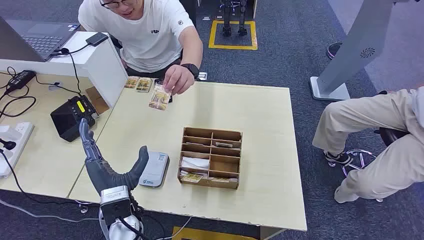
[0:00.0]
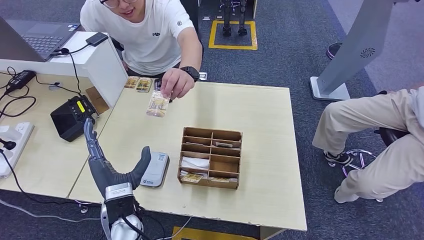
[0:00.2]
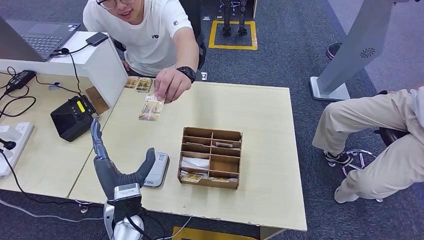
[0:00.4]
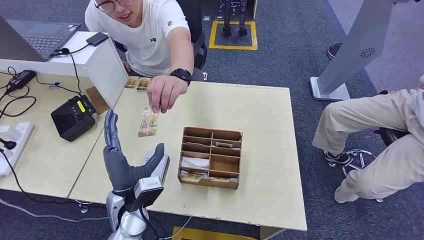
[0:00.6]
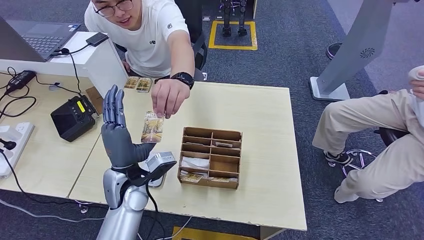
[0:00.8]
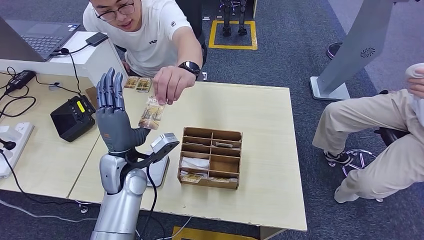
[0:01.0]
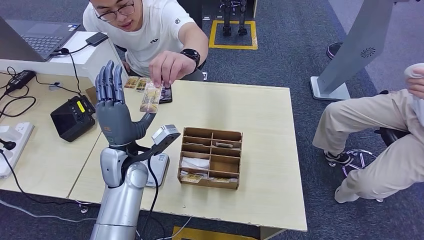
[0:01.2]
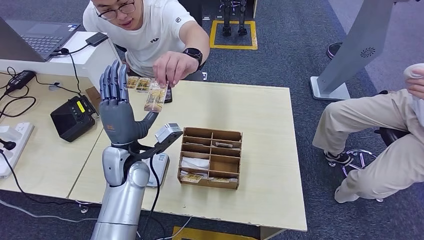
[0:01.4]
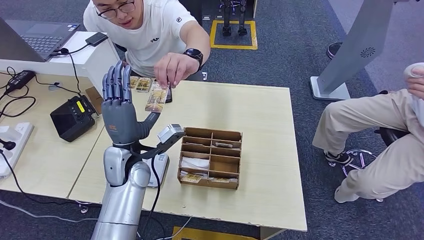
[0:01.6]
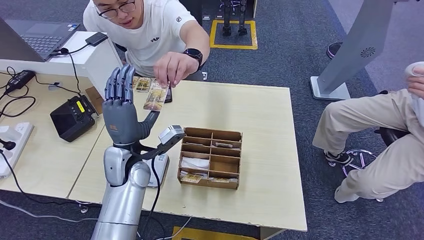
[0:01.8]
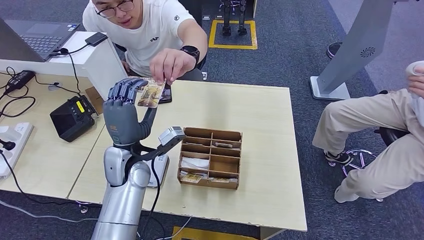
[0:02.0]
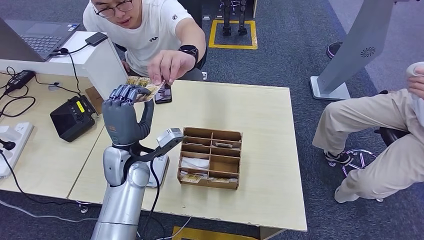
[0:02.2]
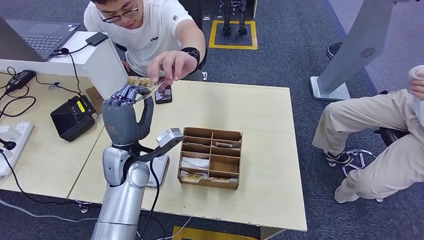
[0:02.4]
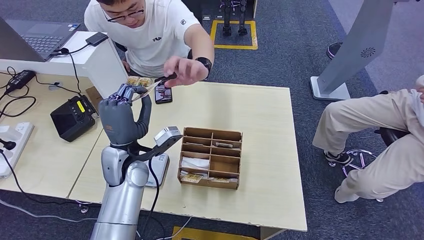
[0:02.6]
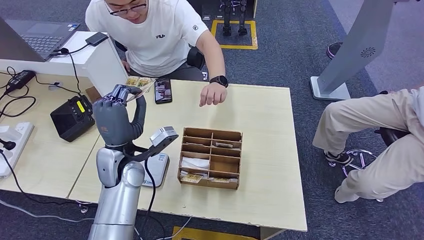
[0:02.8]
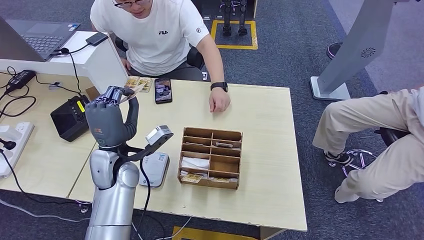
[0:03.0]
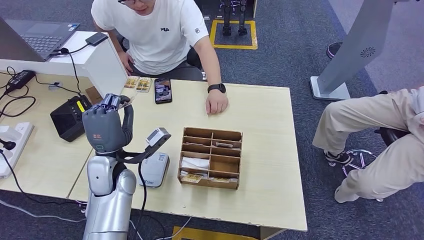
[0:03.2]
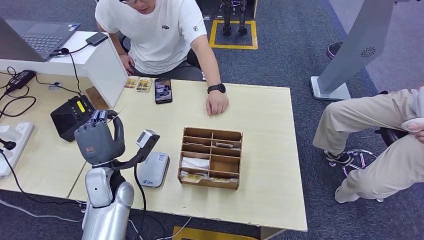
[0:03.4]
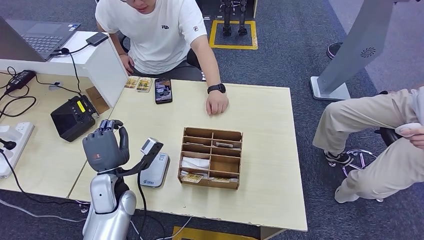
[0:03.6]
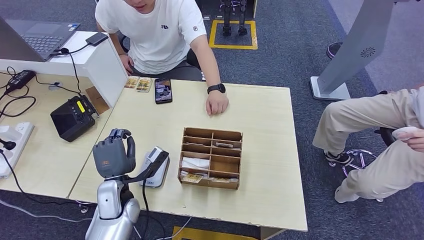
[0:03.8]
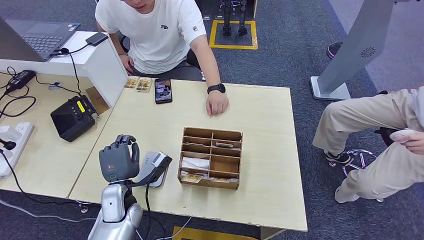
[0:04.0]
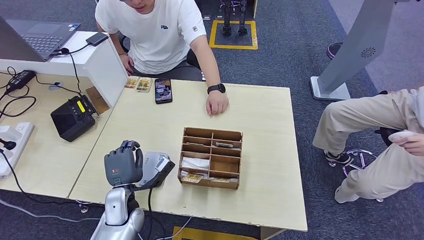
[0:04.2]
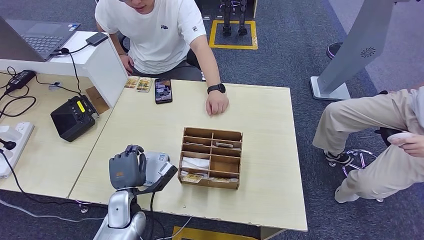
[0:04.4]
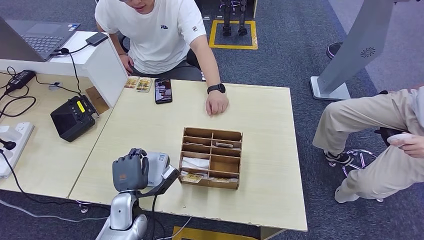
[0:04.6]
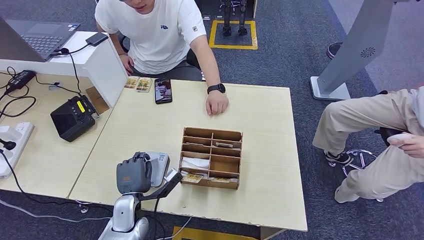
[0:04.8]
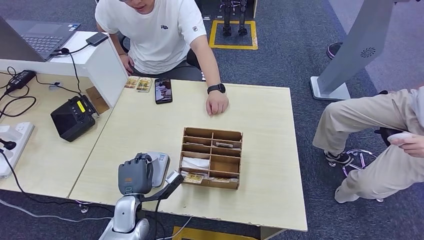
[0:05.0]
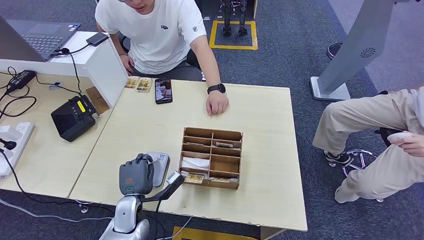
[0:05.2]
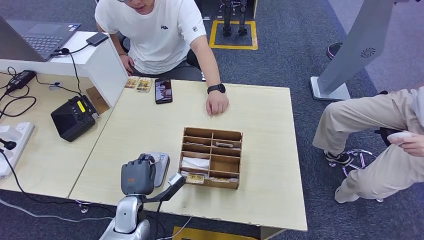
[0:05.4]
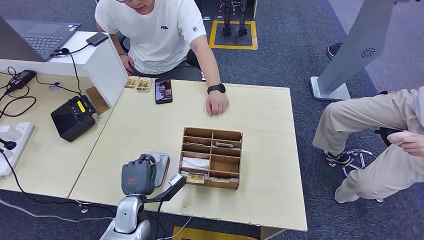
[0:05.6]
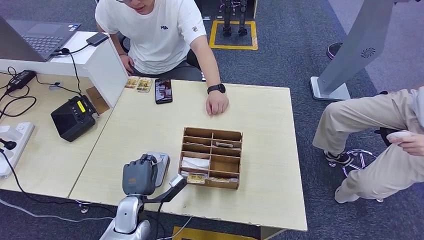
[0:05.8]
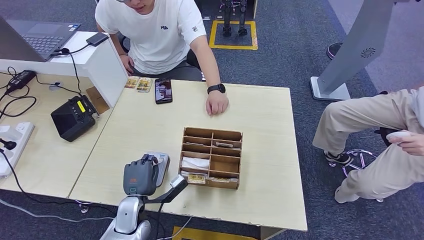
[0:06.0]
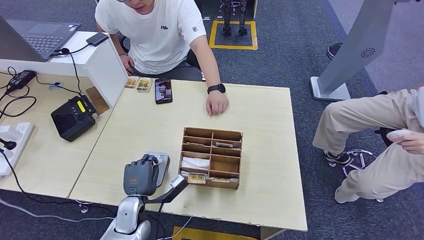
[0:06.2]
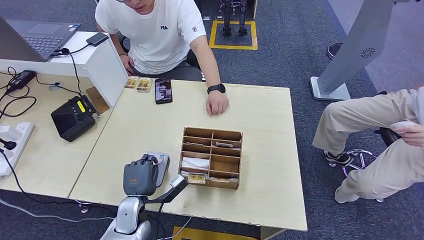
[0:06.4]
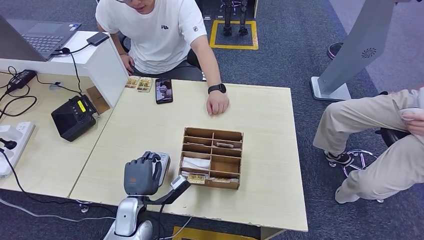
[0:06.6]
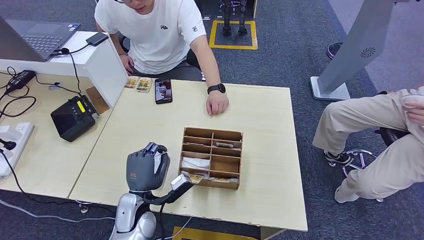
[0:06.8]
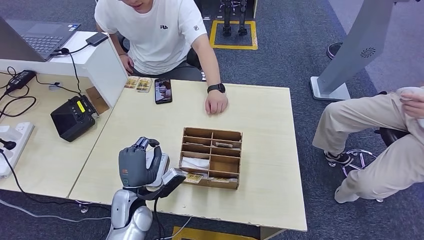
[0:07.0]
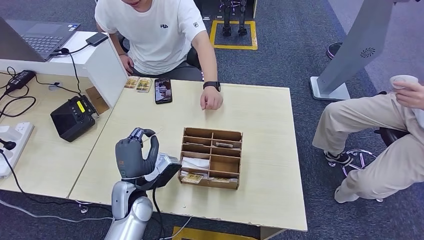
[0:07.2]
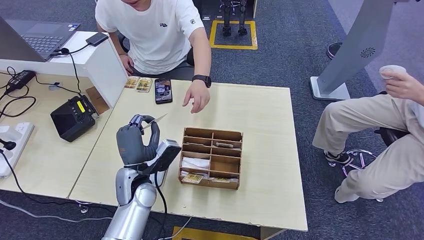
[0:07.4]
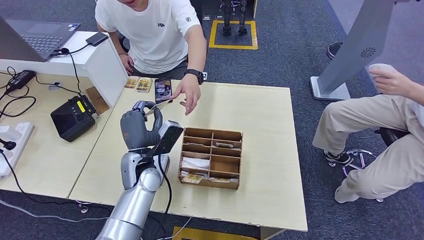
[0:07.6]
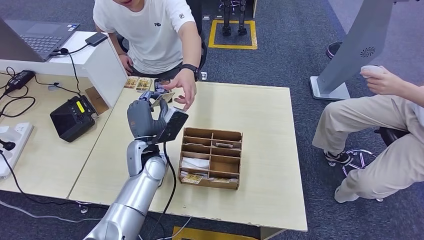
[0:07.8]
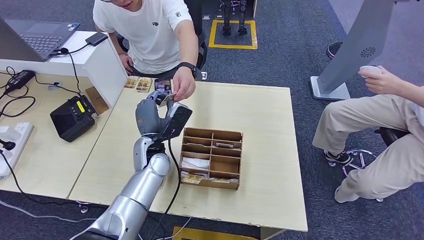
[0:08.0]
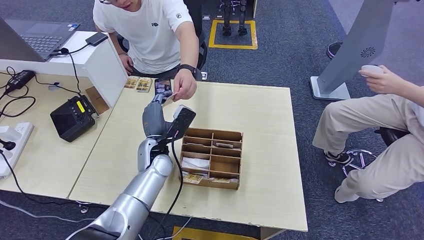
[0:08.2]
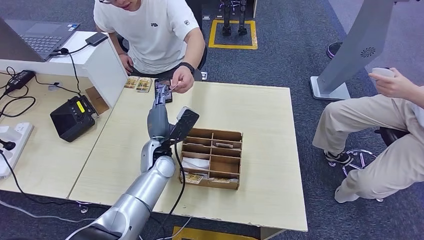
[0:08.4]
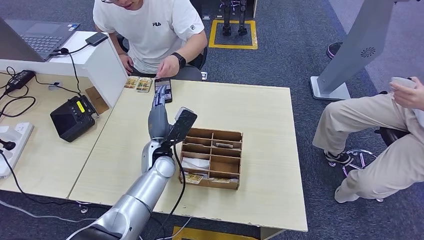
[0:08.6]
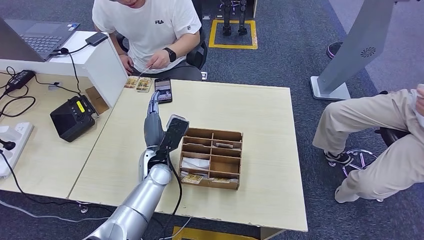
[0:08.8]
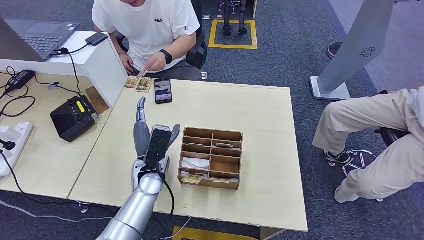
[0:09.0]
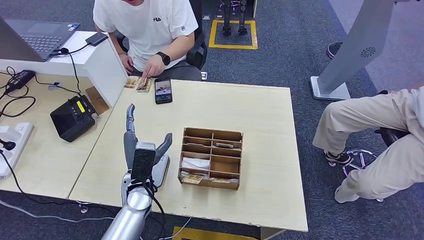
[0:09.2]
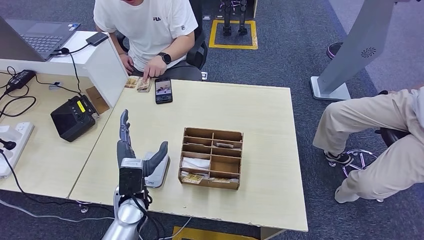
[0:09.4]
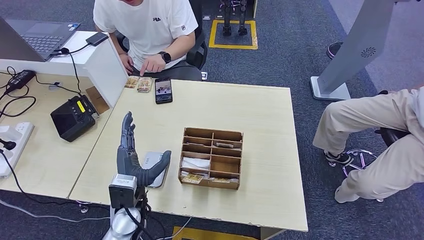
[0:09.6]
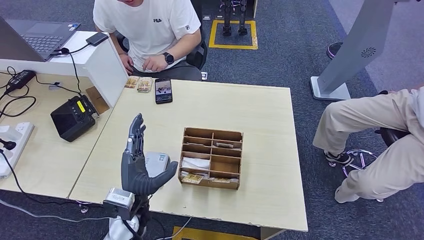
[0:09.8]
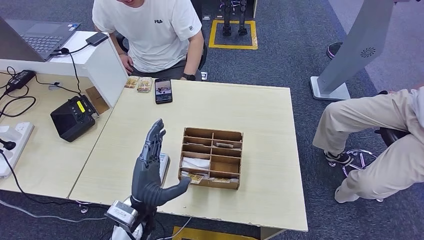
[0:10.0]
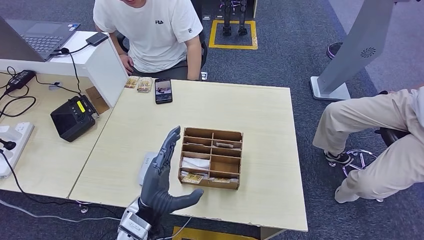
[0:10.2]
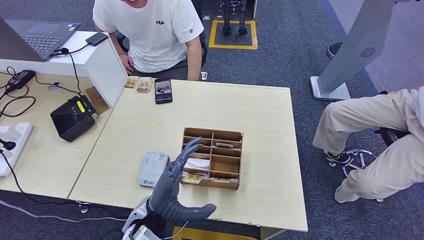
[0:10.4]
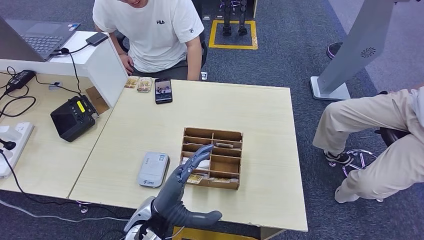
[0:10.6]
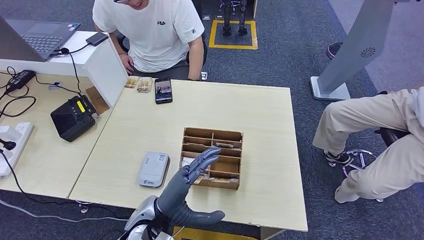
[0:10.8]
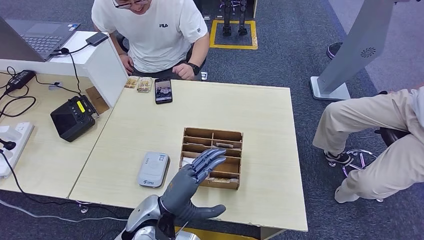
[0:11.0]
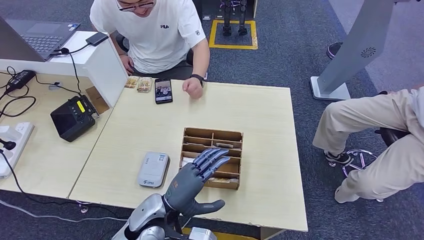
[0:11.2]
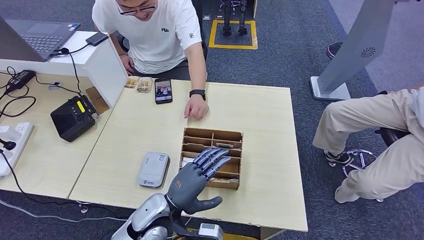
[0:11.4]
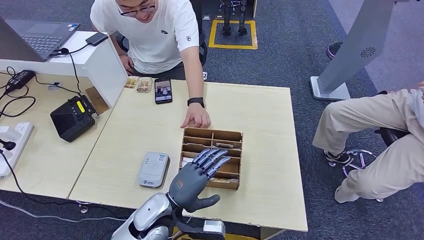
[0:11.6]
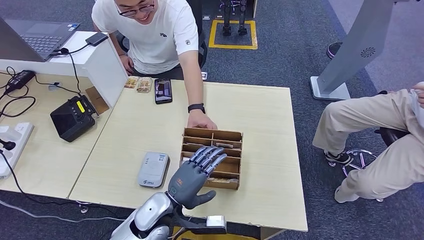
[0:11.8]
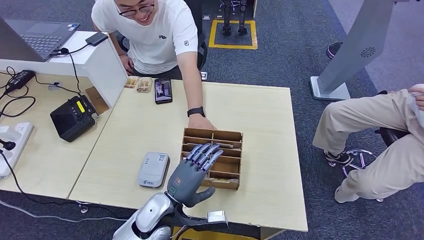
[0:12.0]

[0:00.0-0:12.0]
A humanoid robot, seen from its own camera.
Step, 0:00.0 to 0:02.8: Take the ID card from the person's hand.
Step, 0:03.0 to 0:05.8: Place the ID card on the card reader.
Step, 0:06.0 to 0:08.8: Hand the ID card to the person.
0:01.6 to 0:03.0: The hands move only a little.
0:03.0 to 0:04.4: The left hand travels downward and backward by approximately 15 cm.
0:04.4 to 0:06.0: The hands stay close to where they were, moving slightly.
0:06.0 to 0:07.6: The left hand travels upward and forward by approximately 15 cm.
0:09.0 to 0:10.4: The left hand shifts some 10 cm backward.
0:10.4 to 0:12.0: The left hand moves about 5 cm.

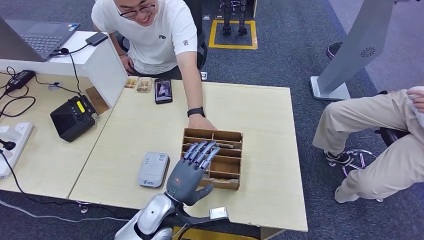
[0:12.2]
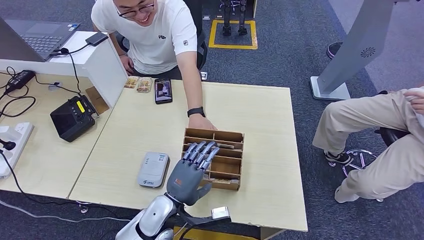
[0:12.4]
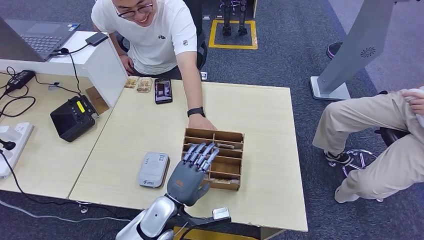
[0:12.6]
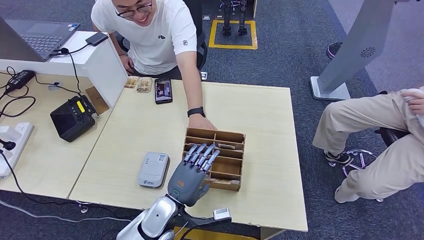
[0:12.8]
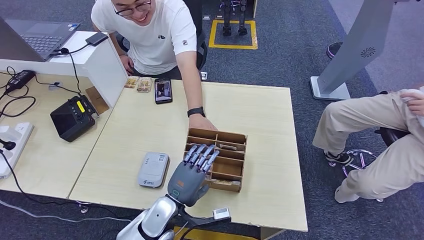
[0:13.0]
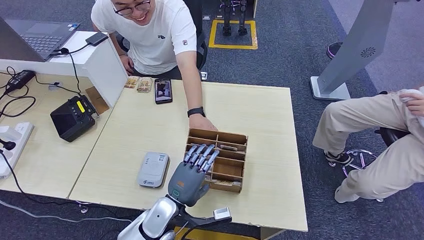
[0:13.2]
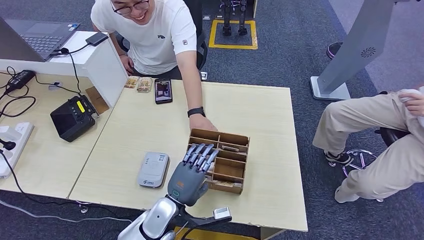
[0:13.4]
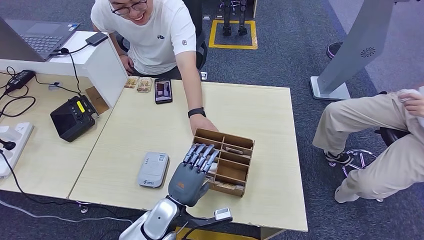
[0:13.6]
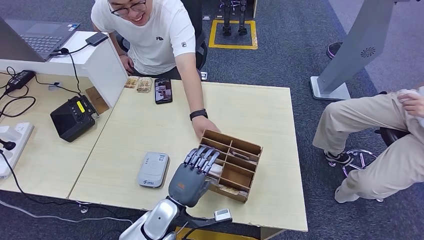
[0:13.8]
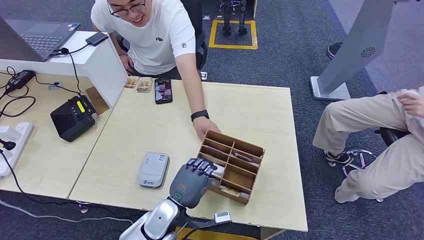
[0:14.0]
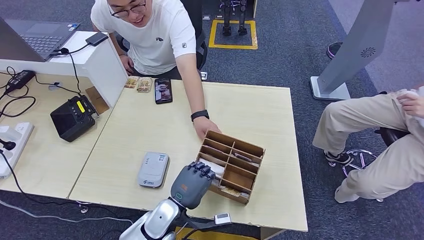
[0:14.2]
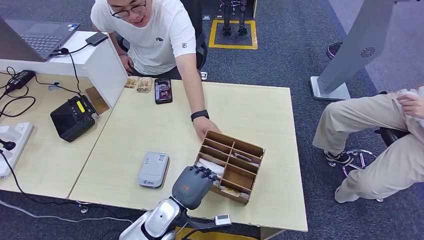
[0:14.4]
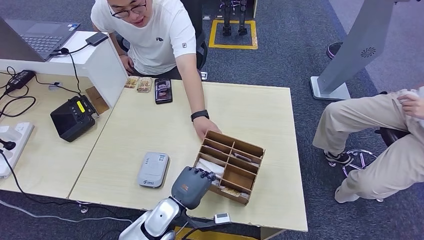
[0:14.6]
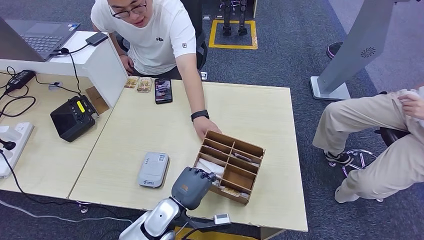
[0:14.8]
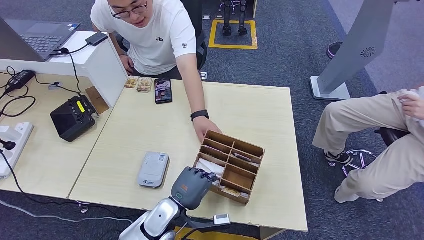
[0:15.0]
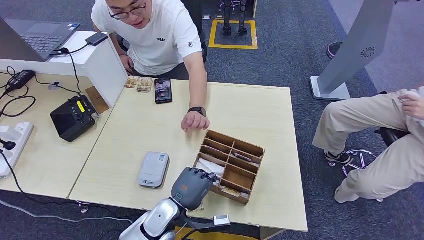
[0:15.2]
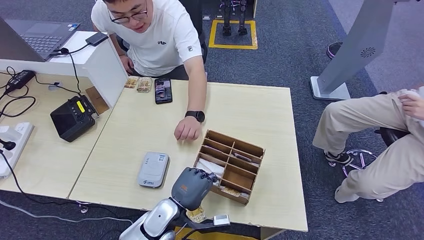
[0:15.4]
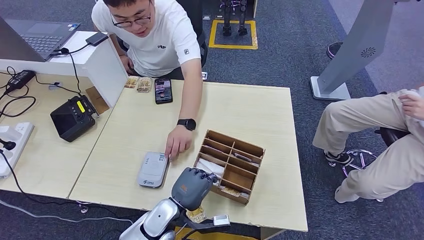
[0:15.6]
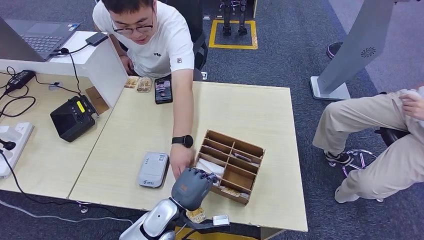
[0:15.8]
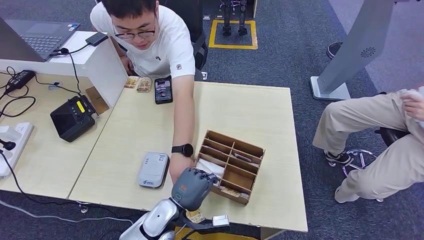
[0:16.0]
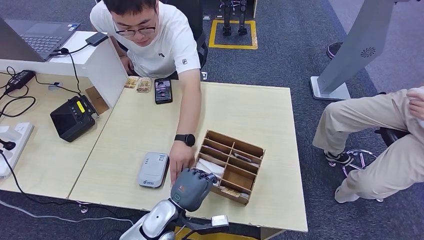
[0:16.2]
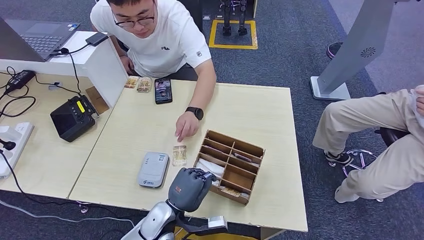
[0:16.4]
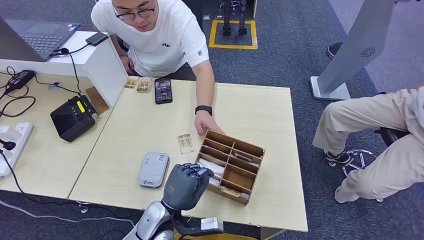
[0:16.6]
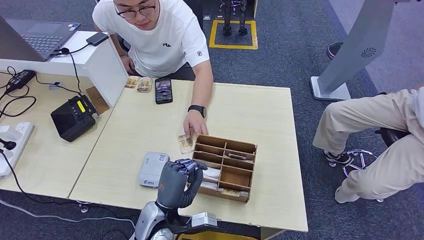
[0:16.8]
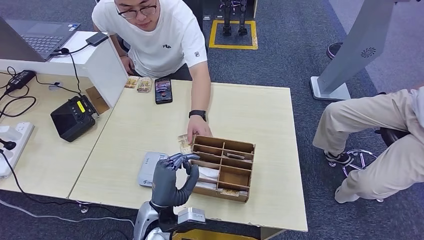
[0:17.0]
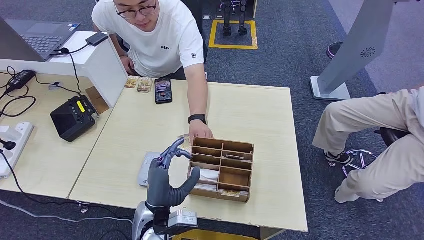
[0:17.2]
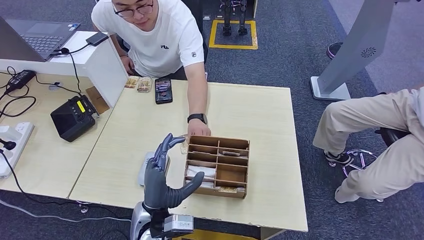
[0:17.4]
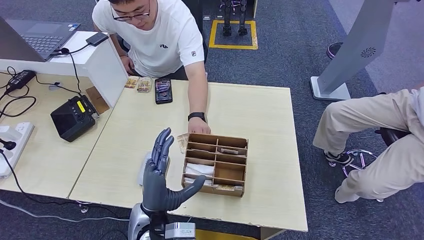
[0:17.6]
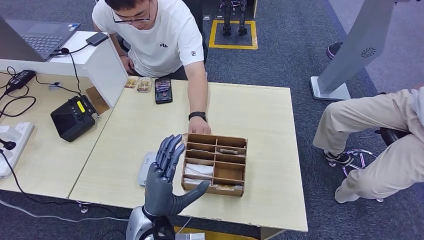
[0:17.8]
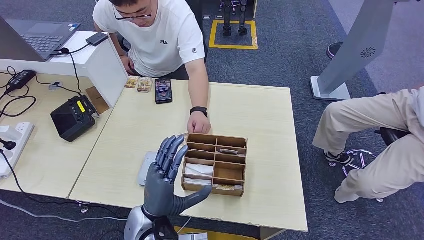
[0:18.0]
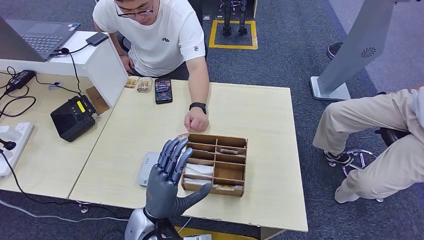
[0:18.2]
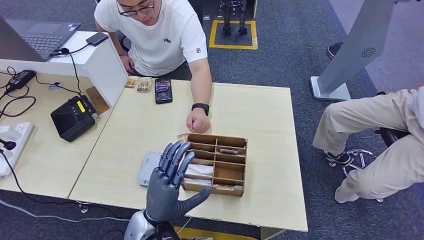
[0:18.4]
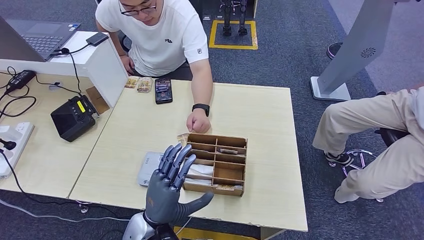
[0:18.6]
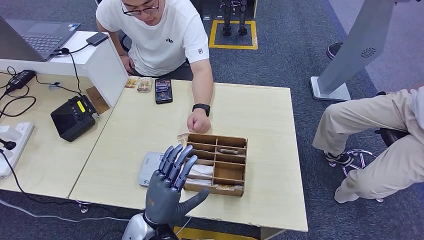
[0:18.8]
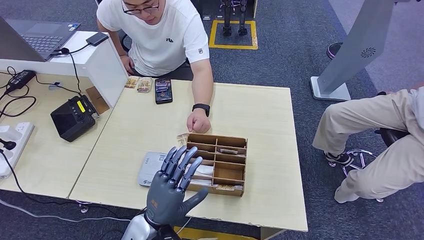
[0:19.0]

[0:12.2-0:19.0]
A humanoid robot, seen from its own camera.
0:12.2 to 0:16.2: The hands move only a little.
0:16.2 to 0:17.6: The left hand moves upward, roughly 5 cm.
